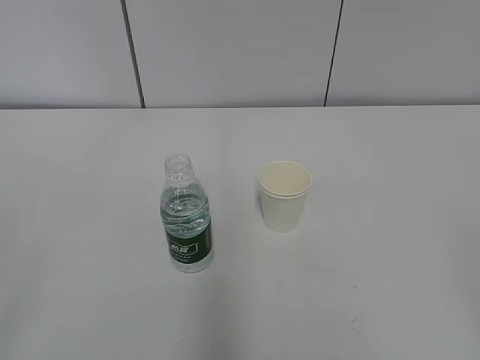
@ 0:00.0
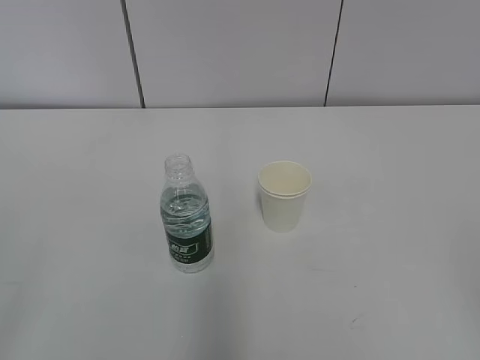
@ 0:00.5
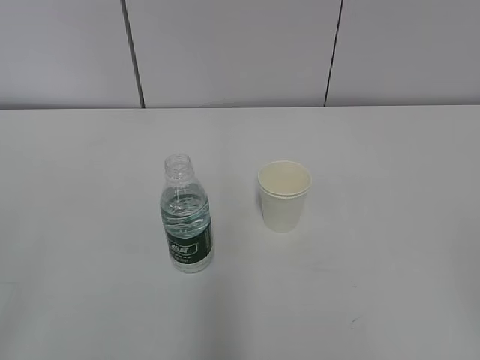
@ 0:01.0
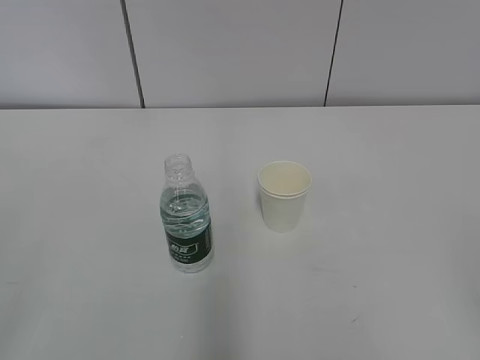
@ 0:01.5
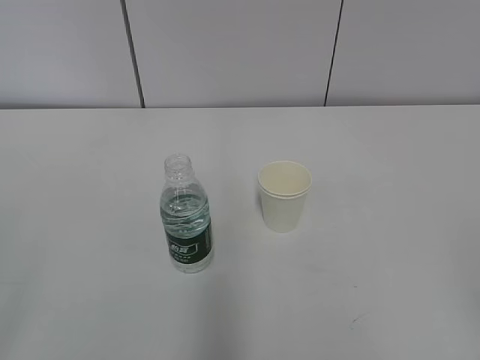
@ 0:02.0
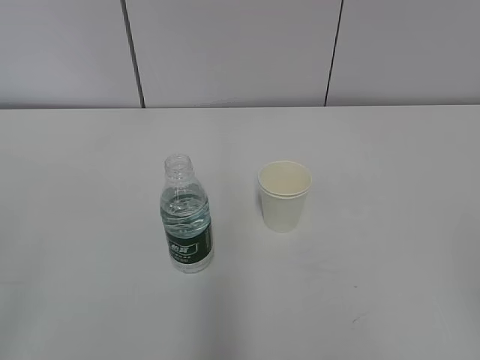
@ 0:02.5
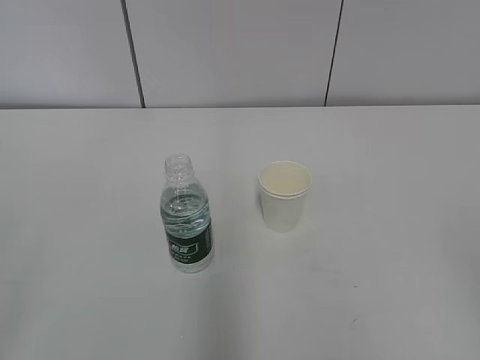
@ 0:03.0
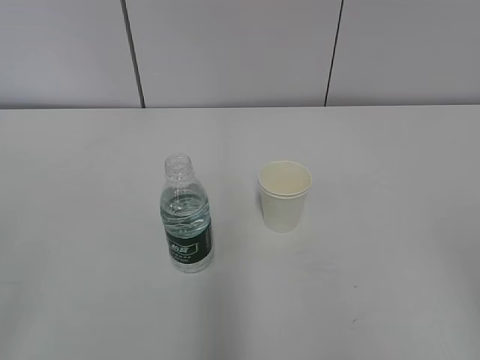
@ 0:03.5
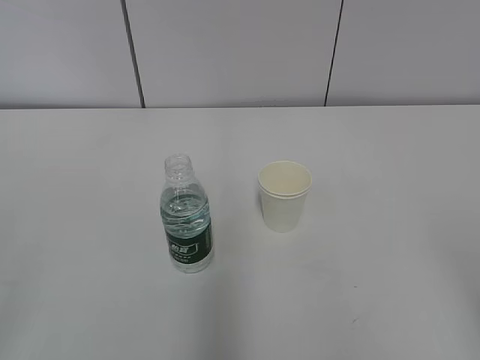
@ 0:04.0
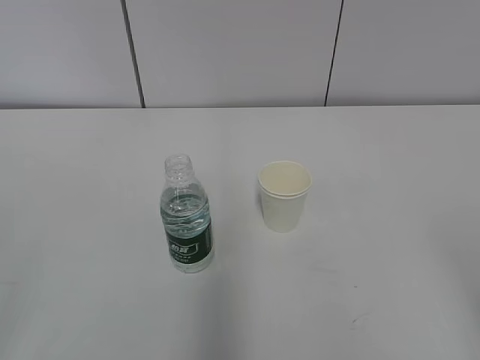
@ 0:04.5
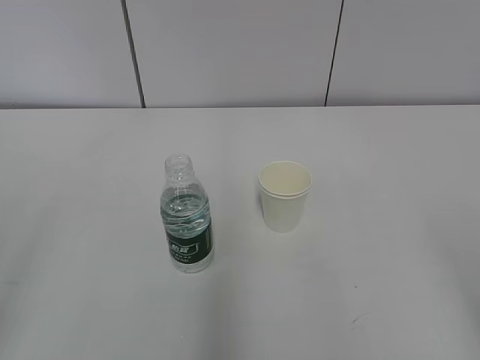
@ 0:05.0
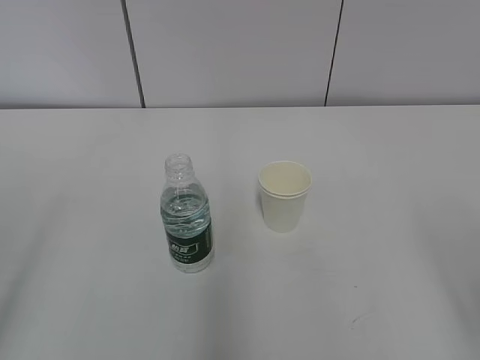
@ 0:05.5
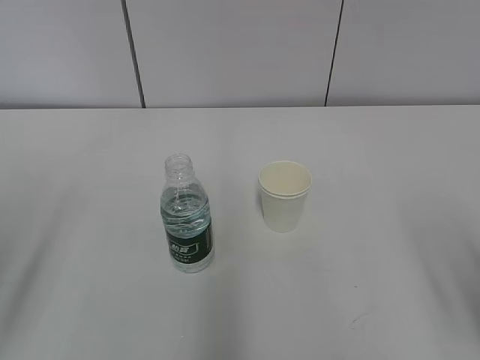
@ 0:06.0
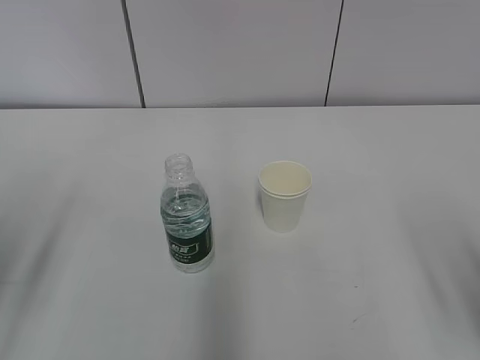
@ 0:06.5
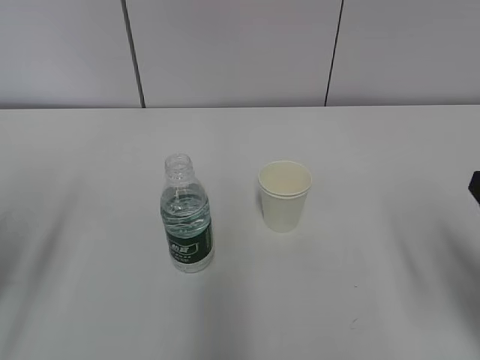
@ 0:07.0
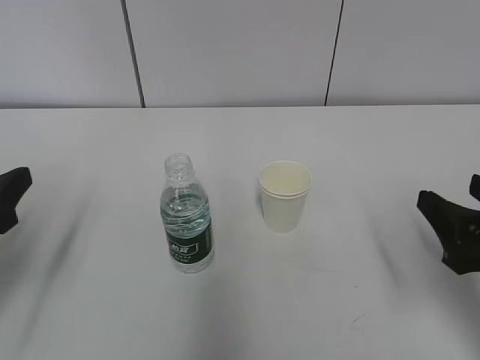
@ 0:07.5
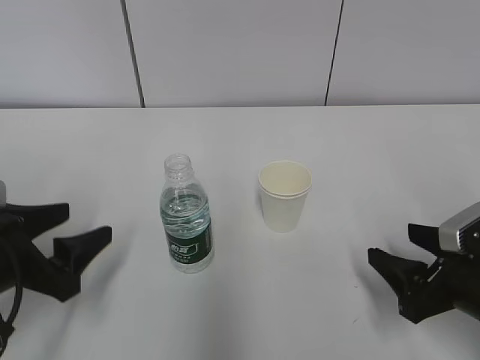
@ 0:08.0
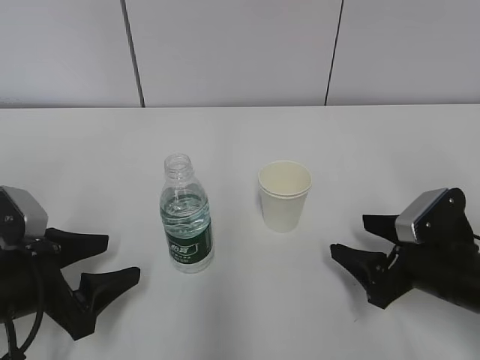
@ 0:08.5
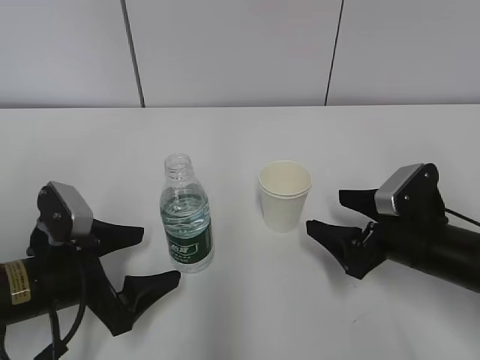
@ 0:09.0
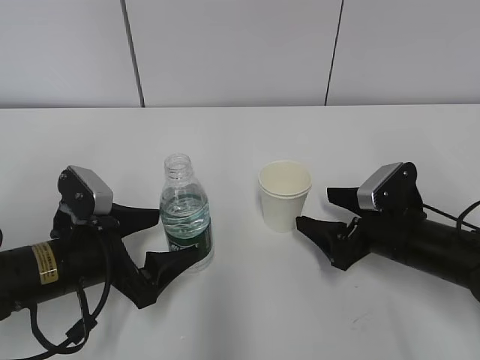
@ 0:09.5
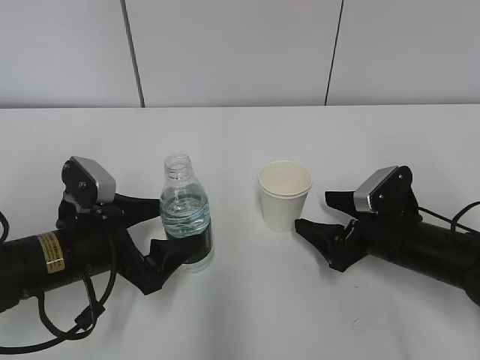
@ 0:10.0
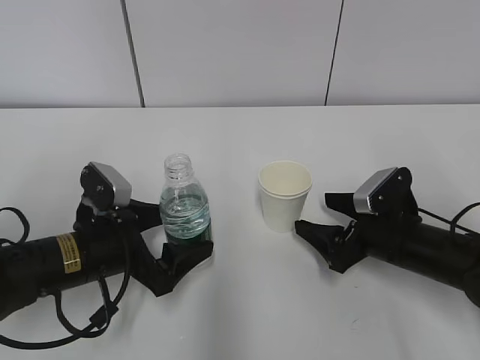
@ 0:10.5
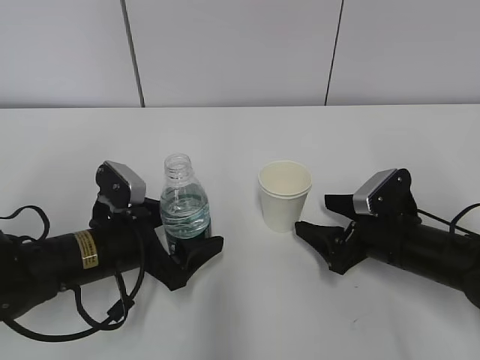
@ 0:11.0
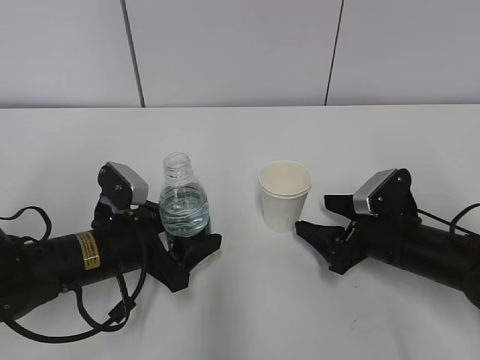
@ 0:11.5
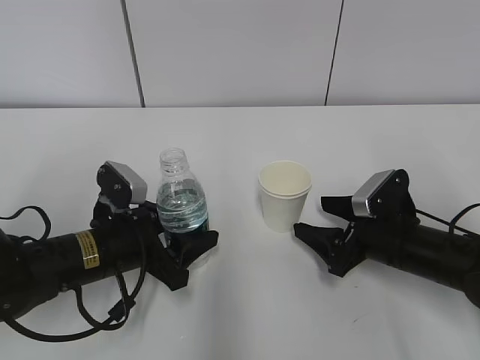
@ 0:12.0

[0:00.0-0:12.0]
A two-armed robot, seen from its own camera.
0:06.0 to 0:08.0: The right gripper is displaced downward and forward by about 15 cm. Meanwhile the left gripper travels downward, forward and to the right by some 15 cm.
0:08.0 to 0:10.0: The right gripper heads forward, covering roughly 10 cm, and opens its fingers. Meanwhile the left gripper goes some 5 cm to the right, and opens.
0:10.0 to 0:12.0: The right gripper closes up. Meanwhile the left gripper closes its fingers.

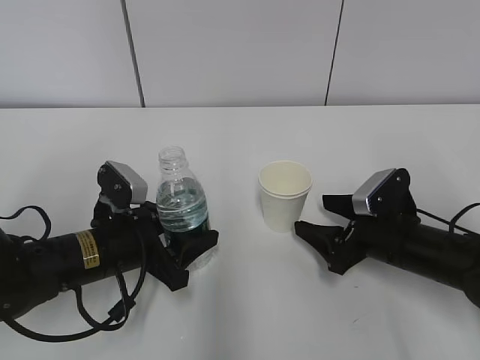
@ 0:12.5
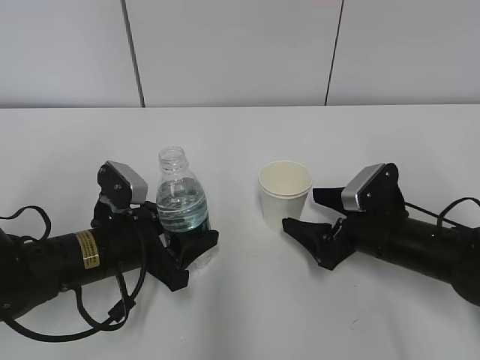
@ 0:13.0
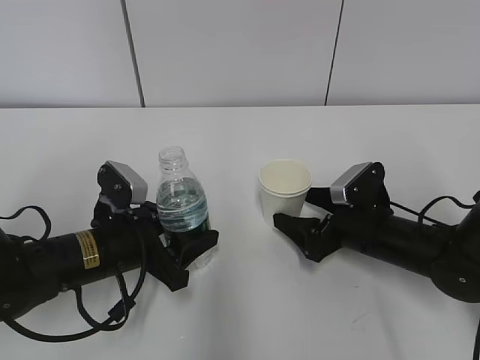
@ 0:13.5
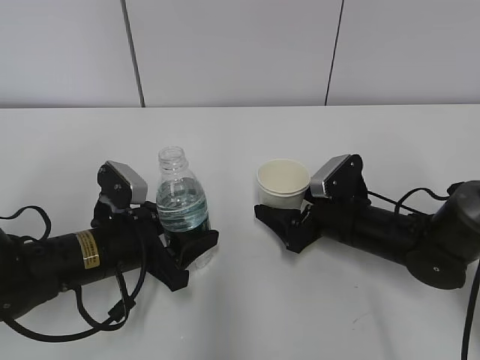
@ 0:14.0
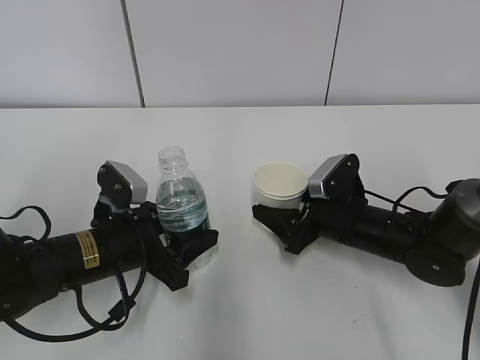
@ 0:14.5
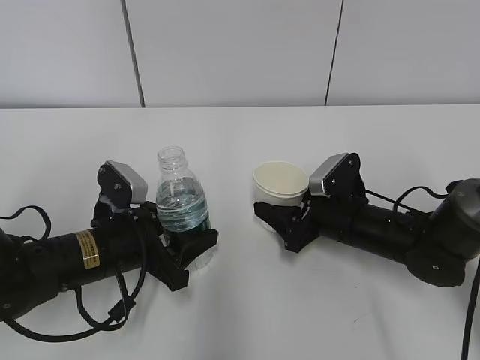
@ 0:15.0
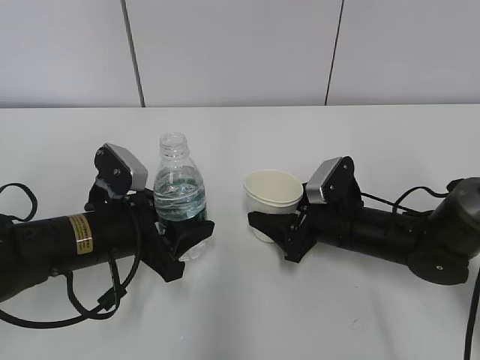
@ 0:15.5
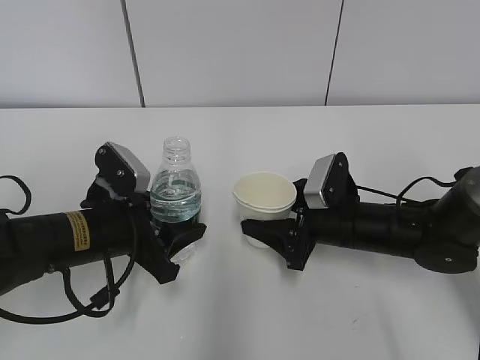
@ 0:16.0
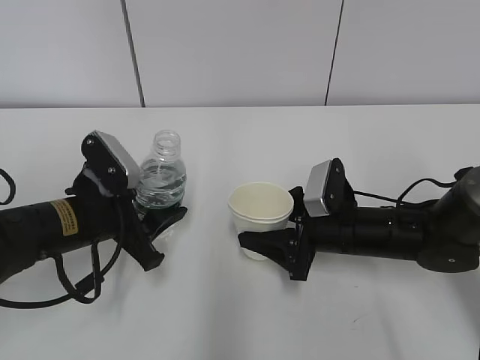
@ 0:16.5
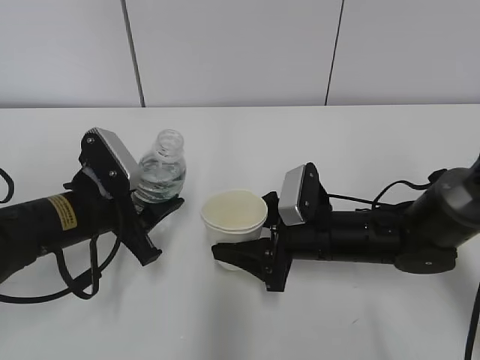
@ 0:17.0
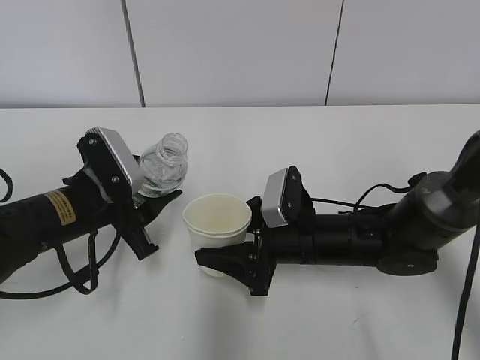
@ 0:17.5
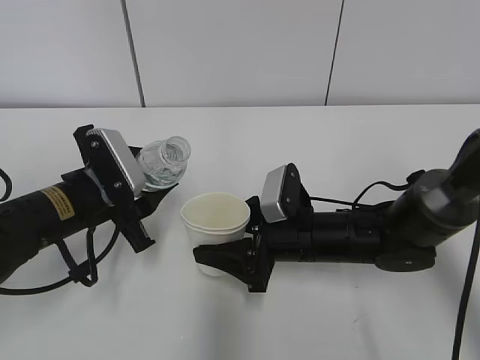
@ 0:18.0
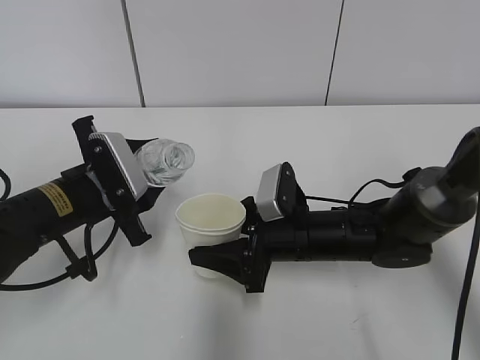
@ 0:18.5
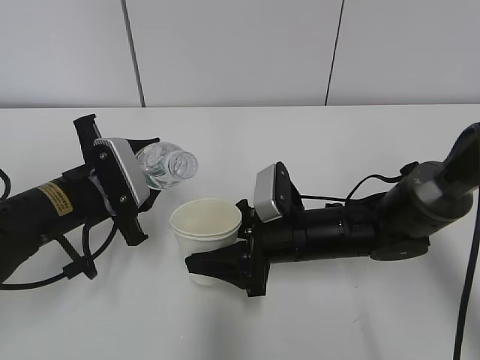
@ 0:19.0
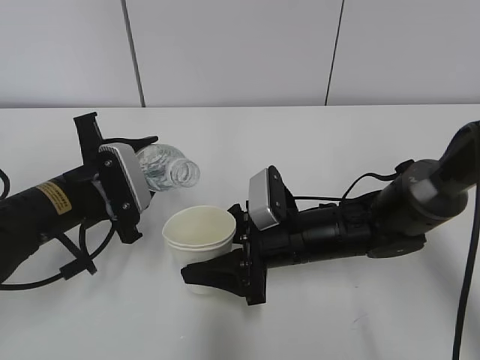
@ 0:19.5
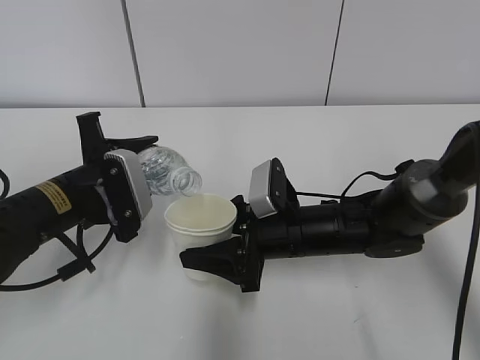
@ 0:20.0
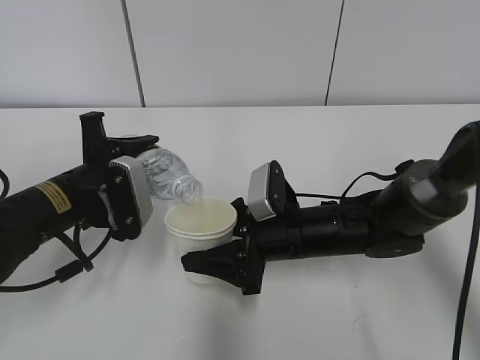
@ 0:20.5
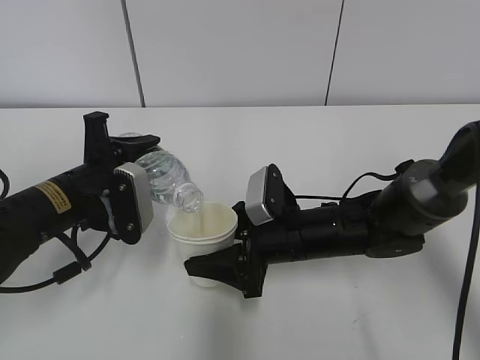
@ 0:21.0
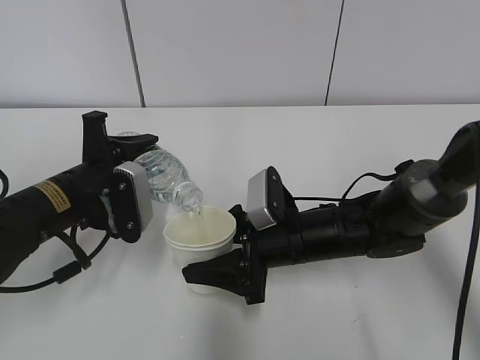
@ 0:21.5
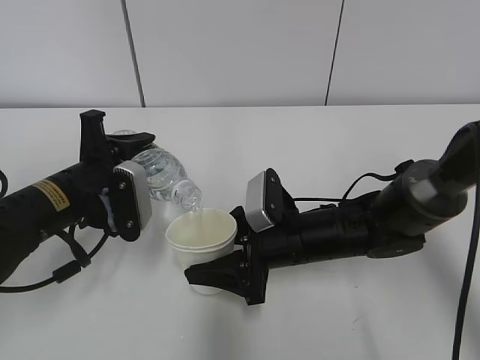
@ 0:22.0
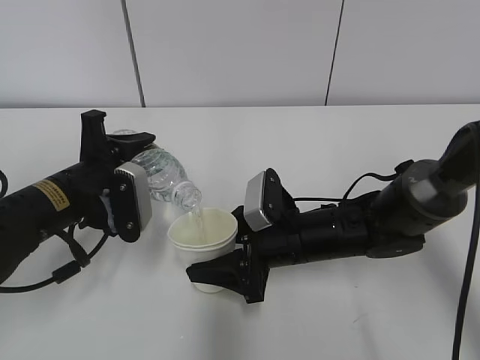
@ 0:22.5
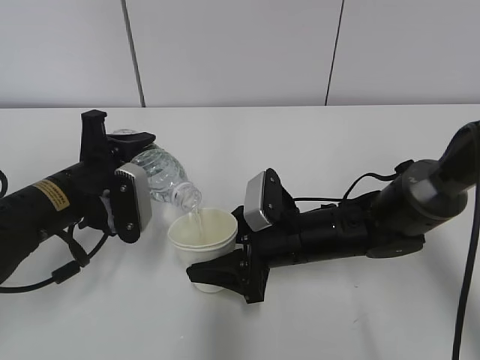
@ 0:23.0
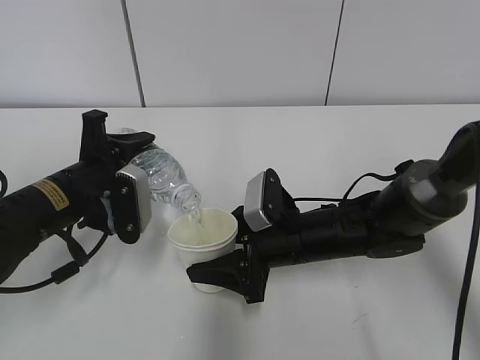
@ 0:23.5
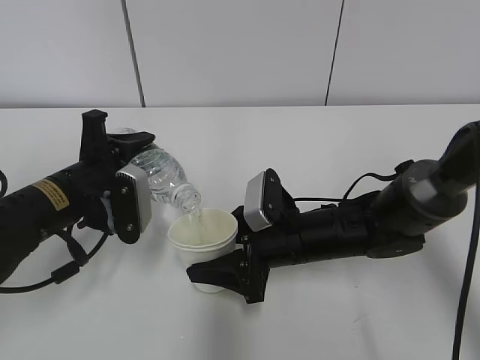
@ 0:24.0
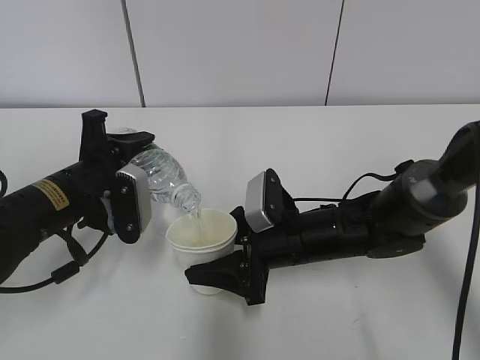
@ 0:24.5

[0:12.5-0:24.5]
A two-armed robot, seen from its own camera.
Step, 0:13.0 to 0:17.0: Lift the paper cup with the right hand.
Step, 0:17.5 to 0:23.0: Fill water with the right hand.
Step, 0:17.5 to 0:23.0: Pour water with the left hand.
0:12.5 to 0:14.5: The right gripper shifts by some 5 cm, and opens, then closes once more.
0:14.5 to 0:16.5: The right gripper closes.
0:16.5 to 0:18.5: The right gripper goes about 5 cm to the left.
0:20.5 to 0:22.5: The grippers stay close to where they were, moving slightly.
0:22.5 to 0:24.5: Neither gripper changes place.

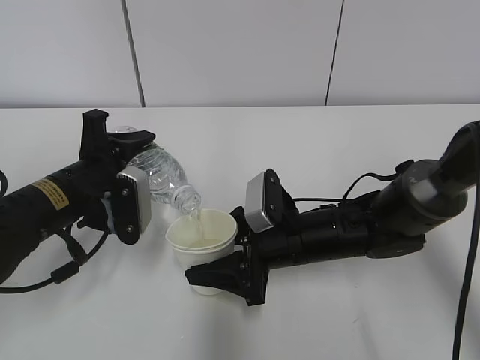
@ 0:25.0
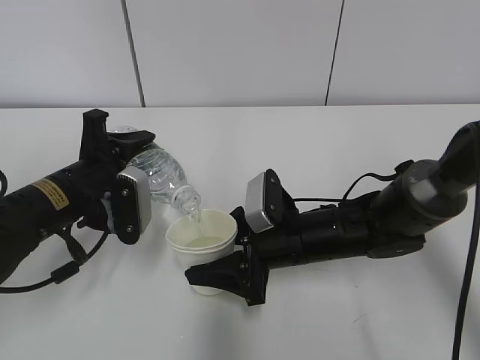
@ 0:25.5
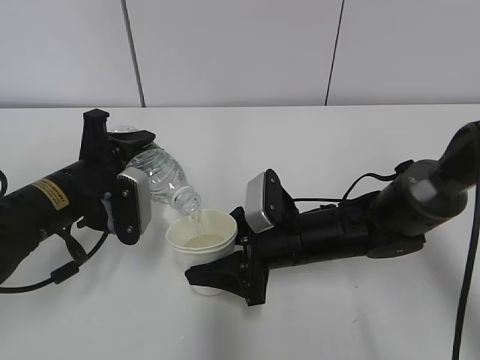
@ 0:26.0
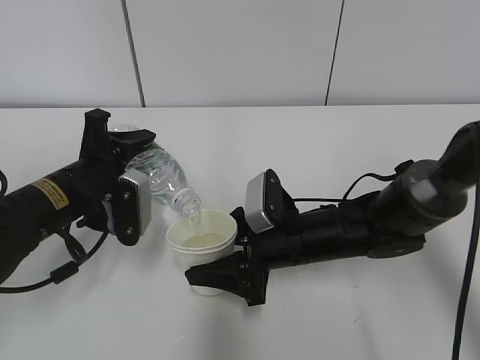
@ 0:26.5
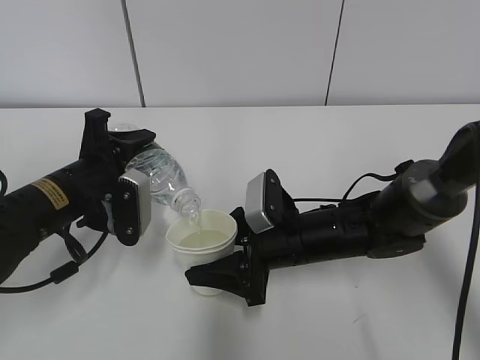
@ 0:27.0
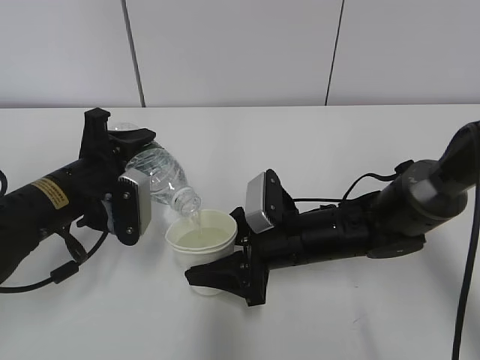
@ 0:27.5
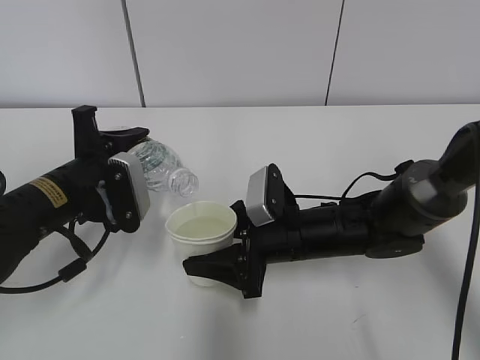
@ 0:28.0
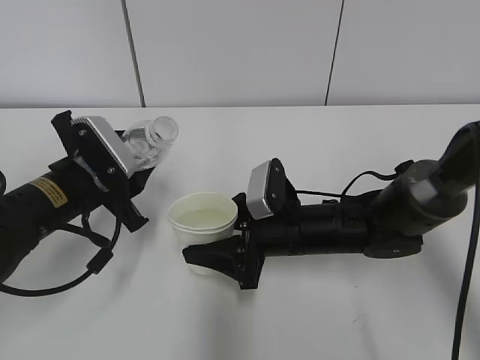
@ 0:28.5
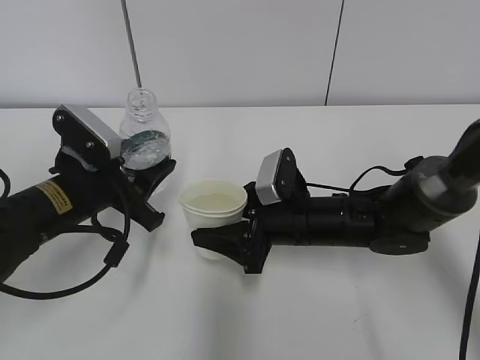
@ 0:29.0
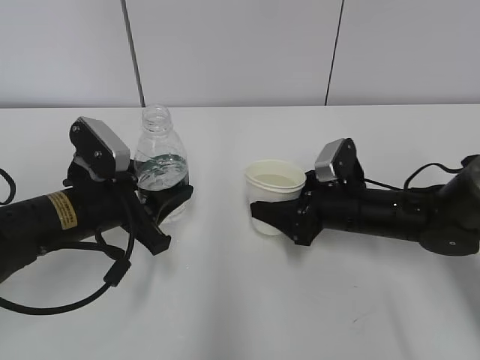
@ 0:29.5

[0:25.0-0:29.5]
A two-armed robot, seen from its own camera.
0:25.0 to 0:27.0: Both grippers stay about where they are.
0:27.0 to 0:29.5: The right gripper travels to the right by approximately 10 cm.
